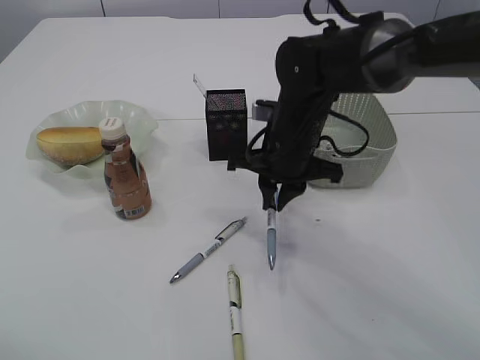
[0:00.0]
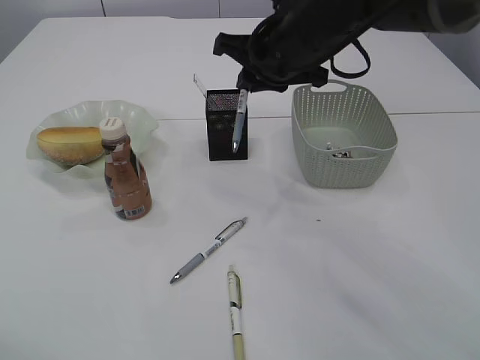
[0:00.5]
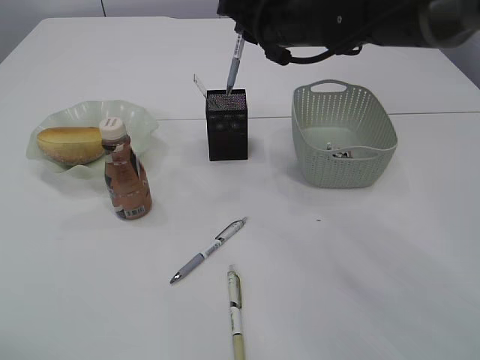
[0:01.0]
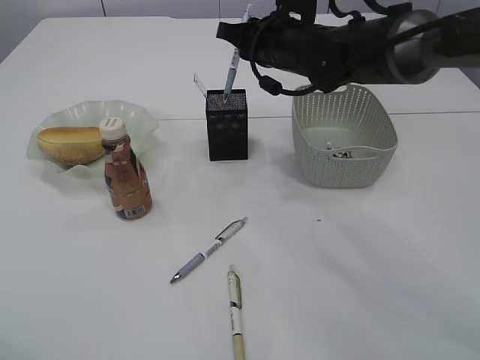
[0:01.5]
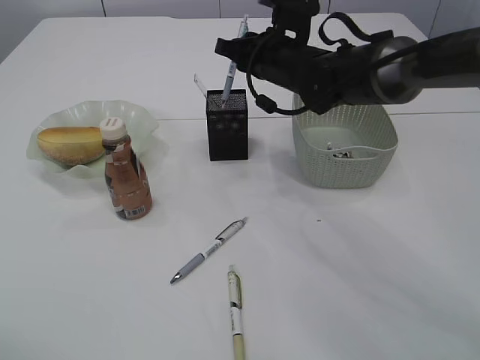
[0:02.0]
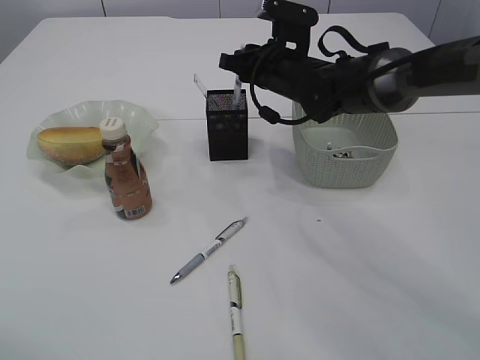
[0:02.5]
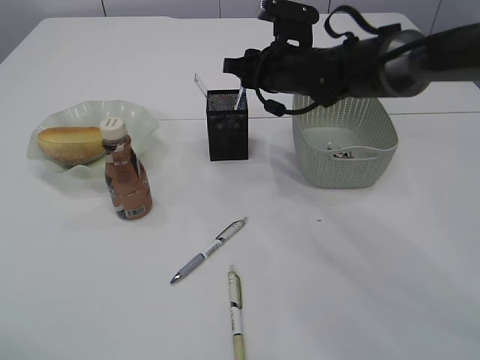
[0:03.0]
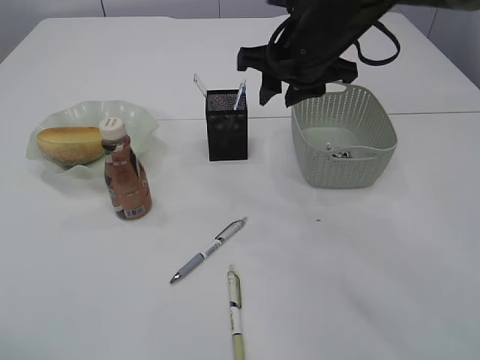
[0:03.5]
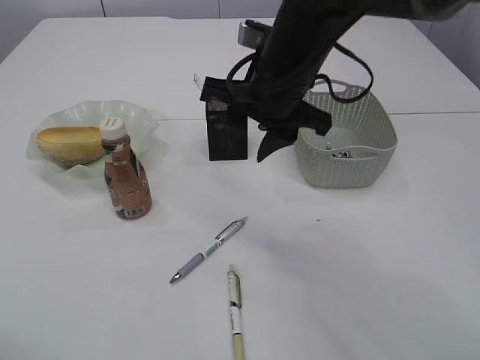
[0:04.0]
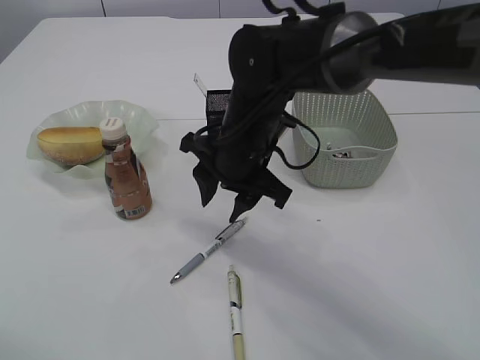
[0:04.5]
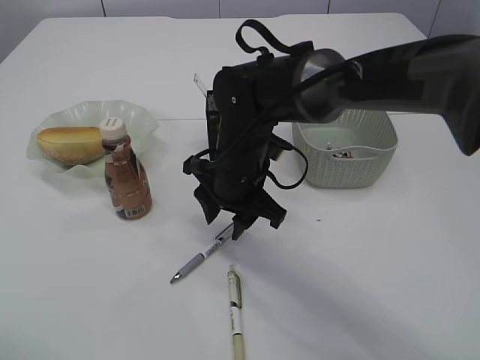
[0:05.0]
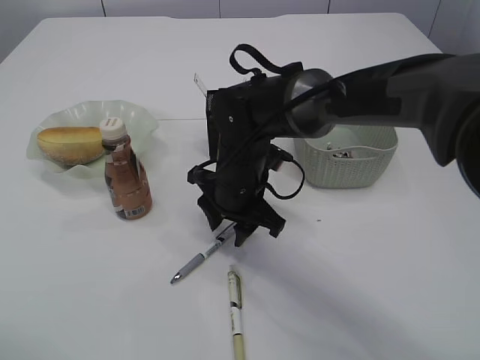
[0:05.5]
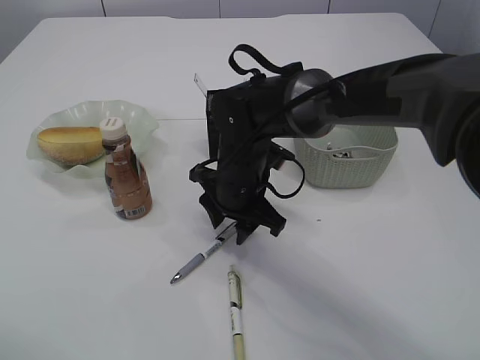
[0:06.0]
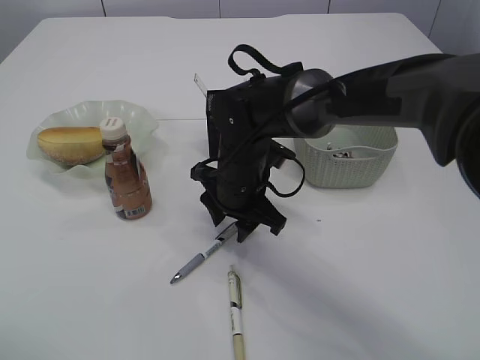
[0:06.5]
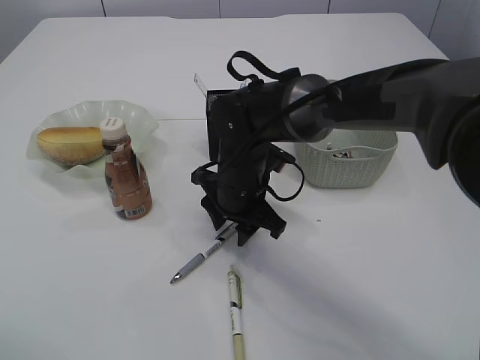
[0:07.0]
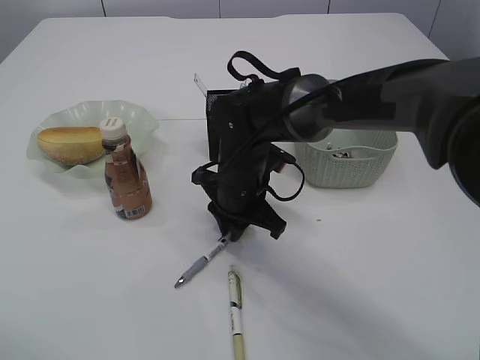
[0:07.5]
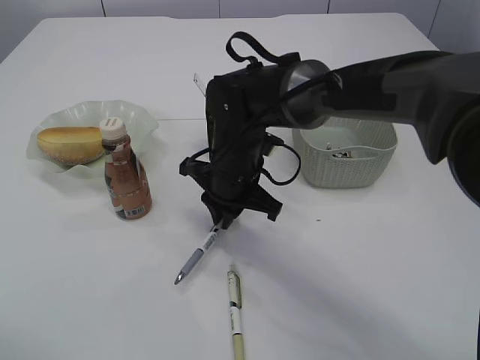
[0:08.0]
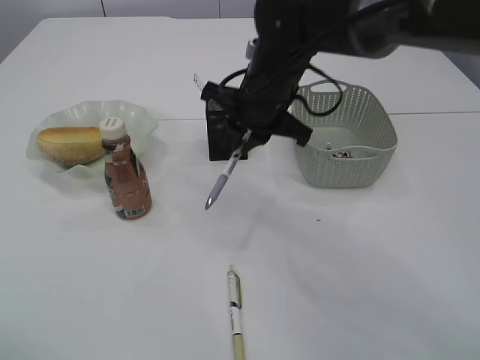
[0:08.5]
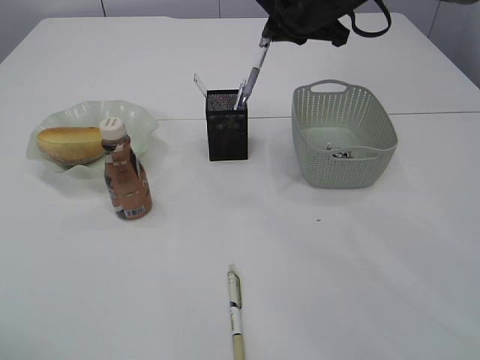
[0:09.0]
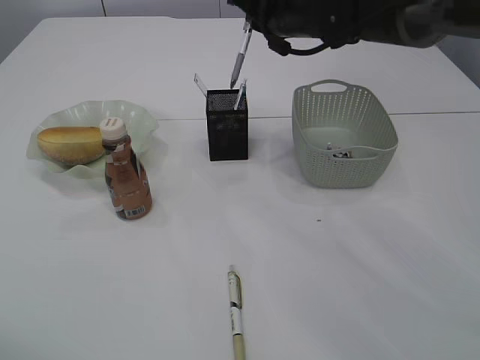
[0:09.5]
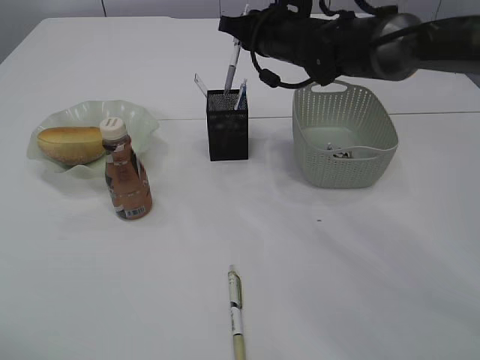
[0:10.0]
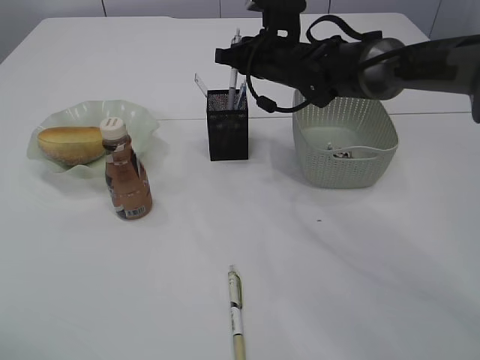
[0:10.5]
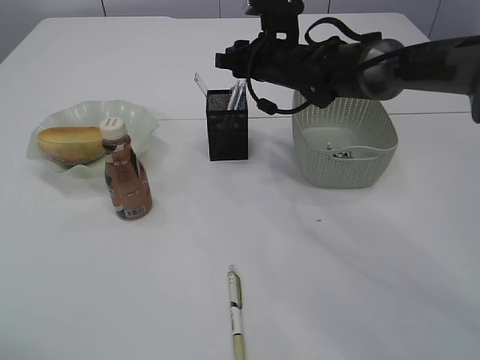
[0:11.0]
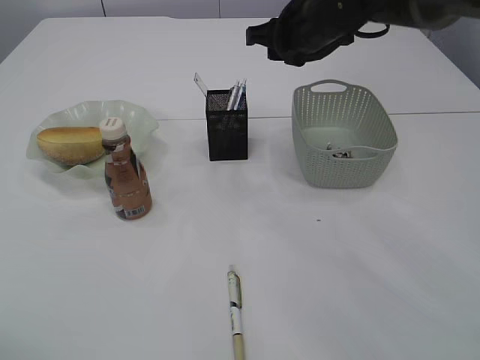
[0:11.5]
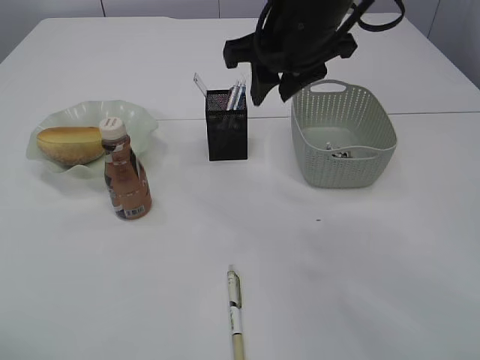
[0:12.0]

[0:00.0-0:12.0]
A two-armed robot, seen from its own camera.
Step, 0:00.5 to 0:03.0: Place the pen into the pen holder.
Step, 0:03.5 to 0:08.5: Pick up the pen with right arm.
Step, 0:09.0 to 0:11.0: Place the pen into the pen holder.
0:00.0 to 0:02.0: The right gripper shifts roughly 10 cm forward.
0:02.0 to 0:04.0: The right gripper travels backward by roughly 10 cm, and opens.
0:04.0 to 0:06.0: The right gripper moves downward, some 15 cm.
0:06.0 to 0:08.0: The right gripper closes its fingers.
0:08.0 to 0:10.0: The right gripper travels forward, upward and to the right by approximately 20 cm.
0:10.0 to 0:12.0: The right gripper shifts approximately 15 cm backward and upward, and opens up.

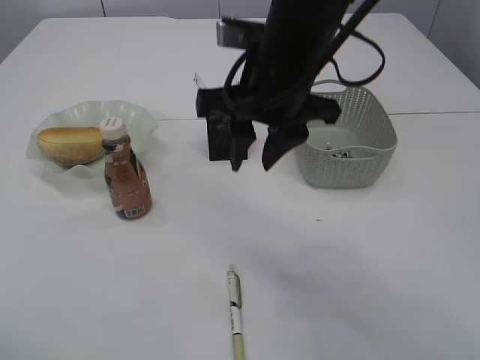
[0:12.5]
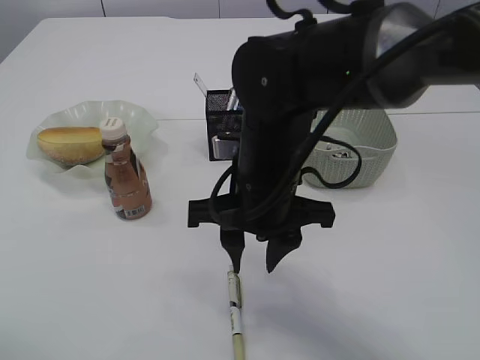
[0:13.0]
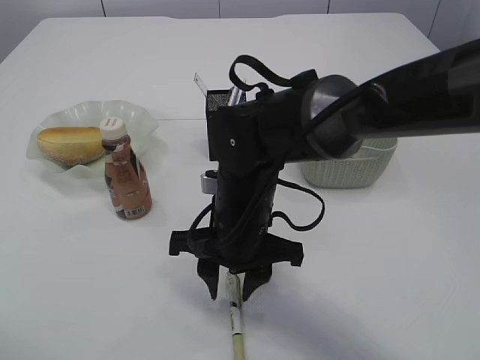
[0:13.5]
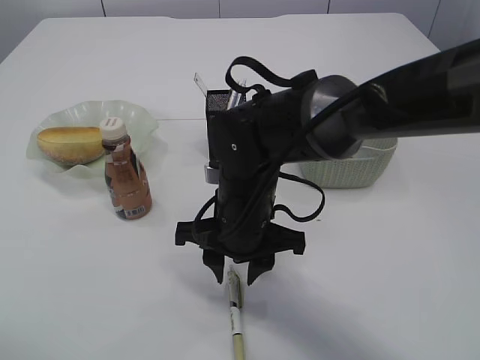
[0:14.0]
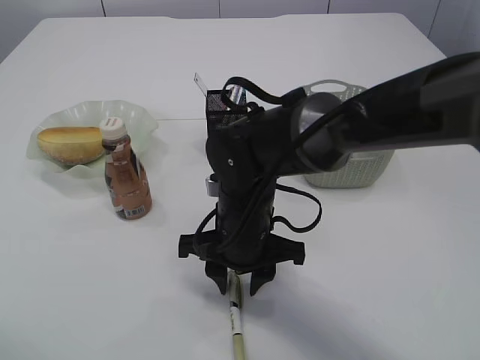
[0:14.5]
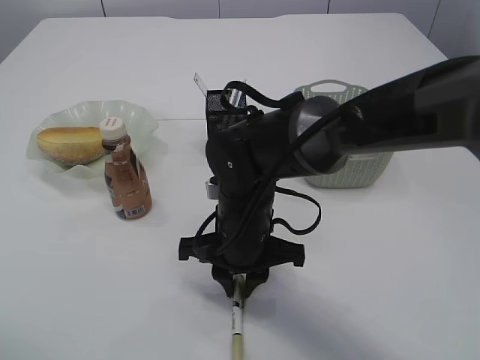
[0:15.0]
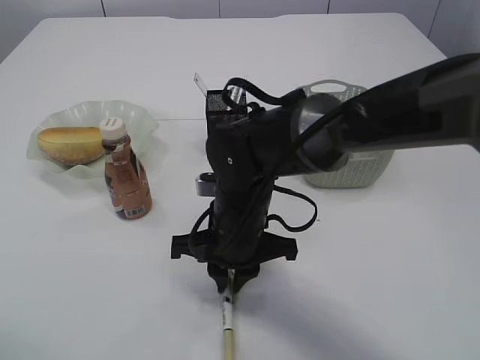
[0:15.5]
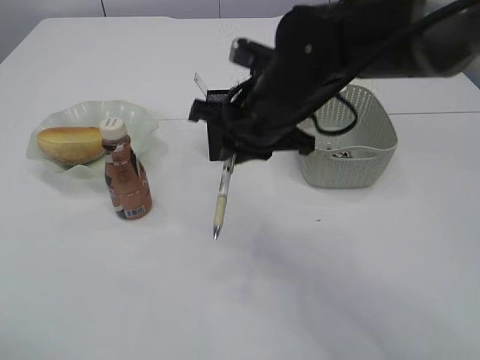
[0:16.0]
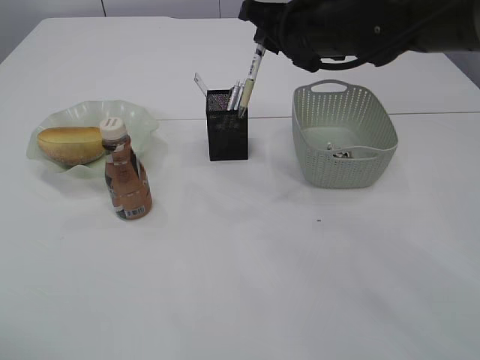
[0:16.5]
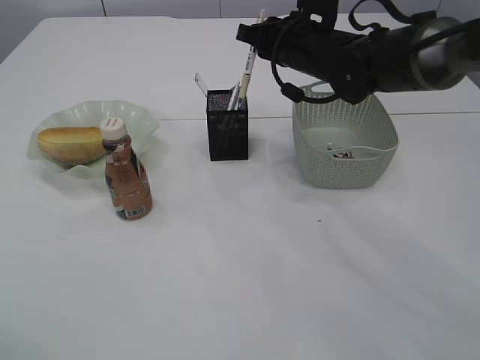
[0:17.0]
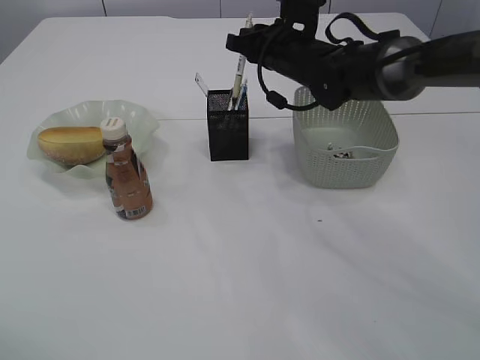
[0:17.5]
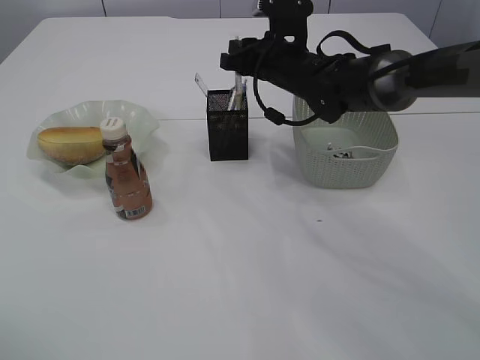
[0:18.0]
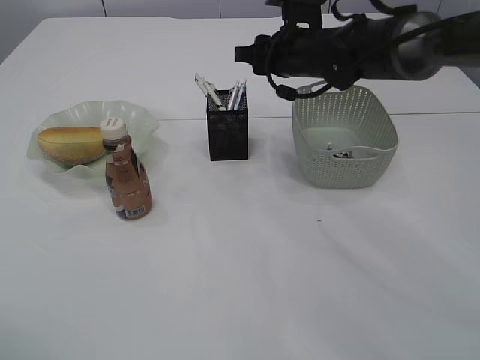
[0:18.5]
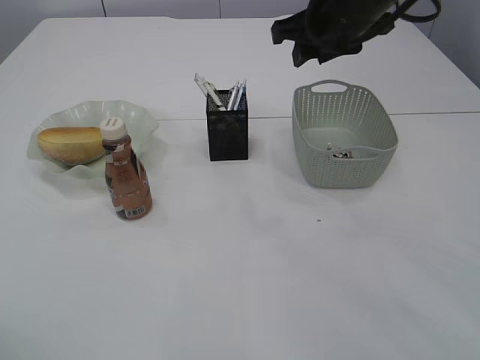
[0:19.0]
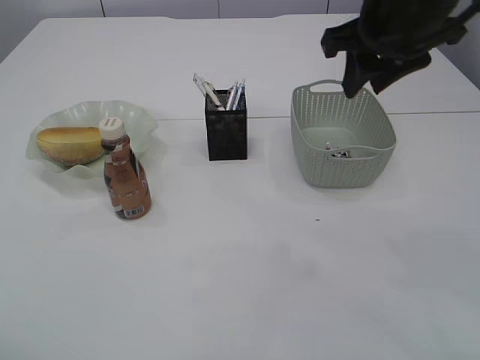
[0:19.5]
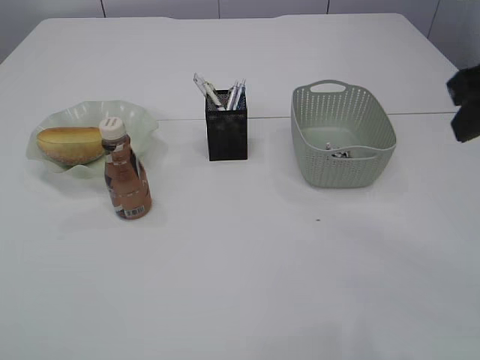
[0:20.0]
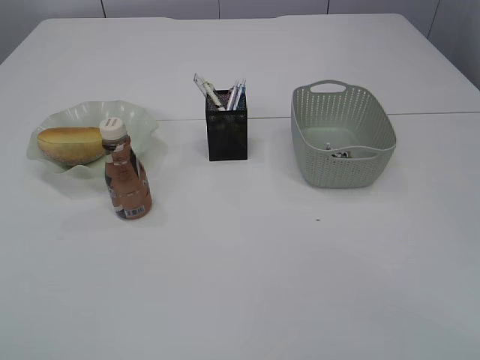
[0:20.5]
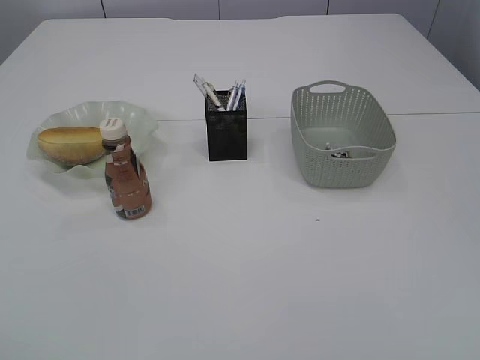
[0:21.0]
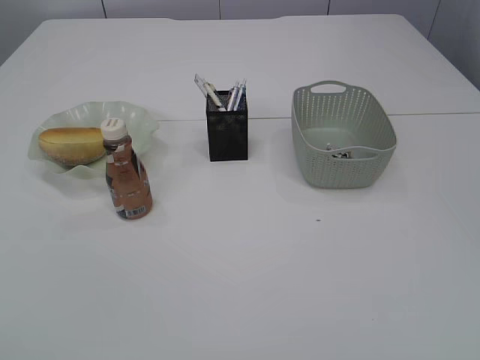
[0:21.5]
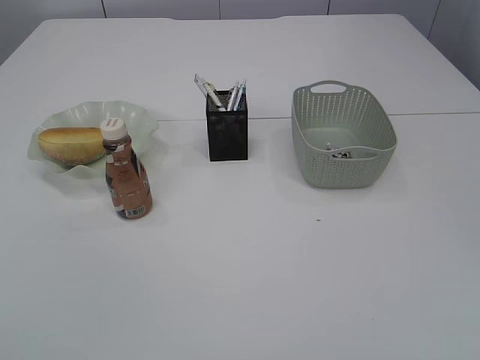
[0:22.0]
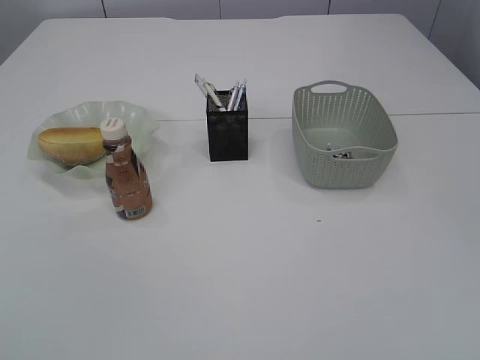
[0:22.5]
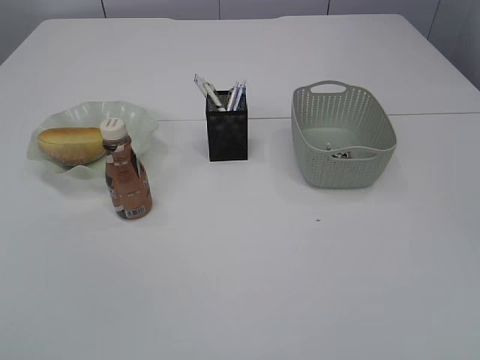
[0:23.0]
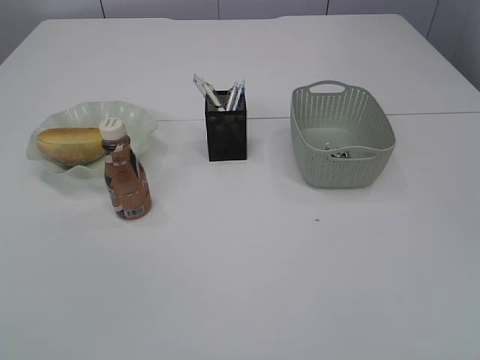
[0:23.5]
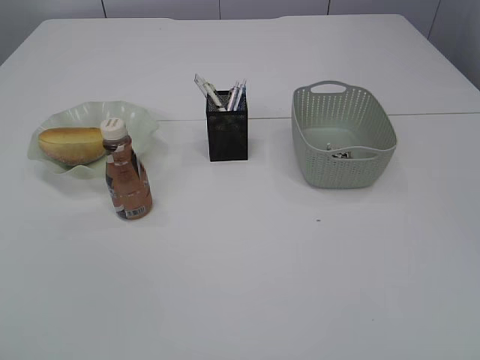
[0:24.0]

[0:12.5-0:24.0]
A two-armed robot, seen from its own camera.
Step, 0:12.5 to 0:15.5: Pick up the pen with right arm.
Step, 0:16.0 to 0:18.5: Place the pen into the pen holder.
0:12.5 to 0:14.5: The right gripper shifts some 15 cm downward.
0:14.5 to 0:16.5: The right gripper travels upward, forward and to the right by roughly 20 cm, and closes.
0:16.5 to 0:18.5: The right gripper shifts approximately 10 cm forward and downward, and opens.
0:18.5 to 0:20.0: The right gripper goes approximately 30 cm backward, to the right and upward. Meanwhile the left gripper shifts roughly 5 cm backward.
0:20.0 to 0:22.0: The right gripper shifts about 30 cm backward.

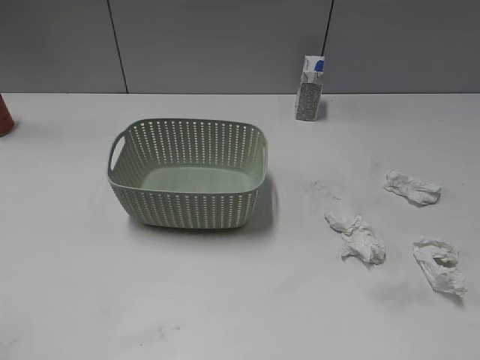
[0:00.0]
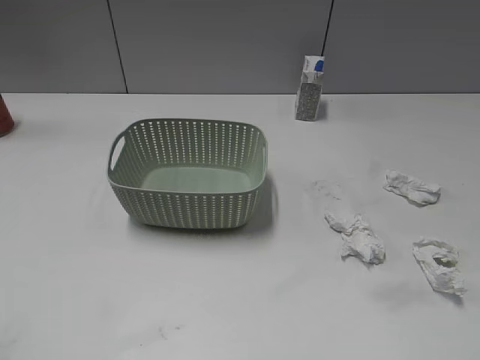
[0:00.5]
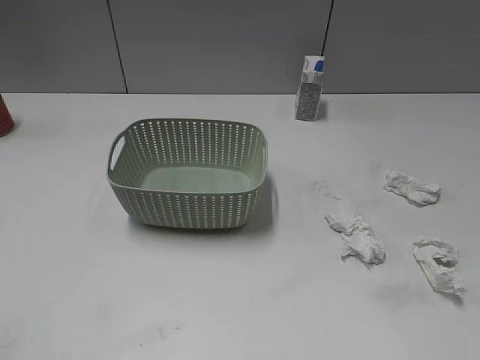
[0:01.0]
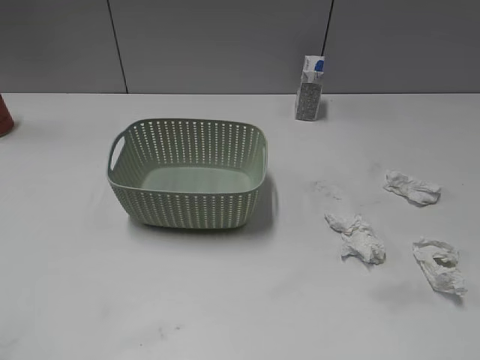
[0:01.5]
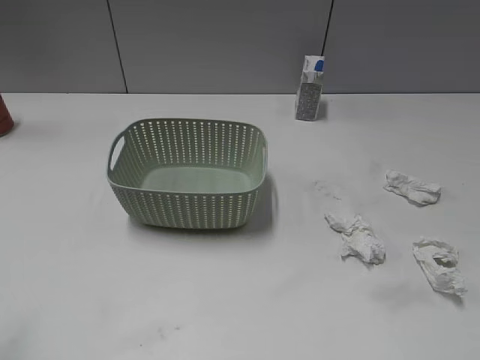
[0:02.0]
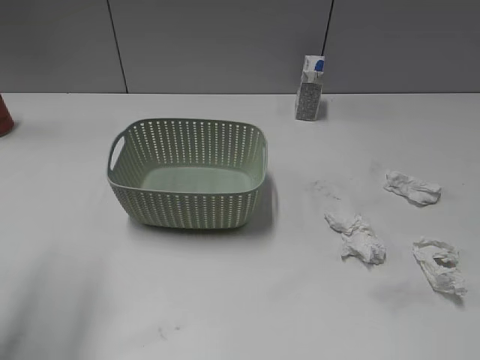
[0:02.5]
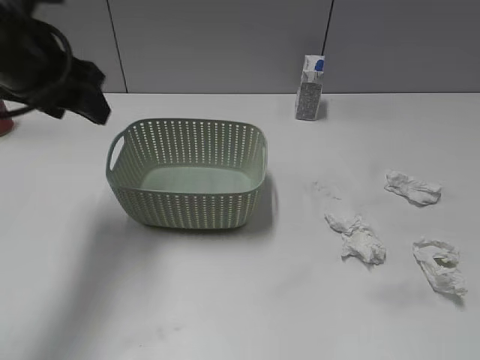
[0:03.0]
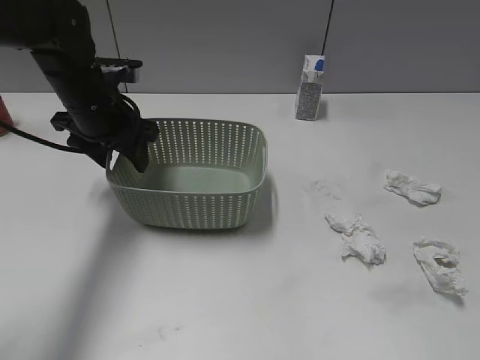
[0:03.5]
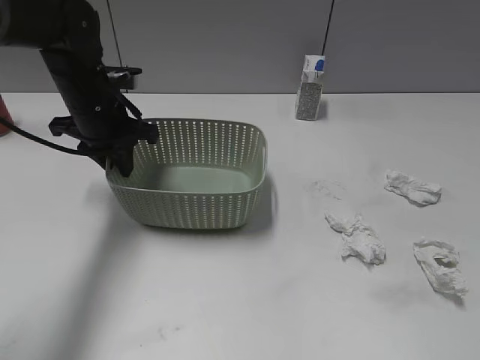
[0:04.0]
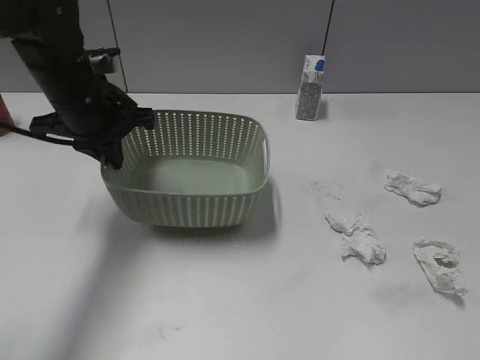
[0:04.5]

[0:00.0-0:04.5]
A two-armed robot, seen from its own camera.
Step, 0:02.5 to 0:04.0: Grasp the basket with left gripper.
0:02.0 to 0:04.5: The left gripper moves forward, to the right and downward, approximately 35 cm, and closes.
